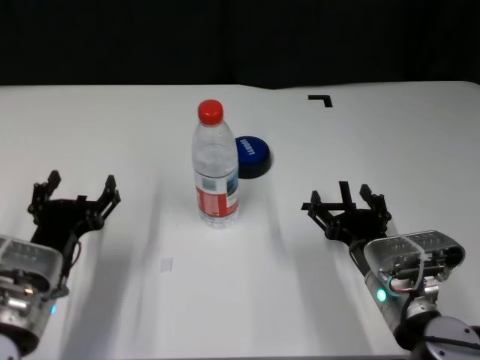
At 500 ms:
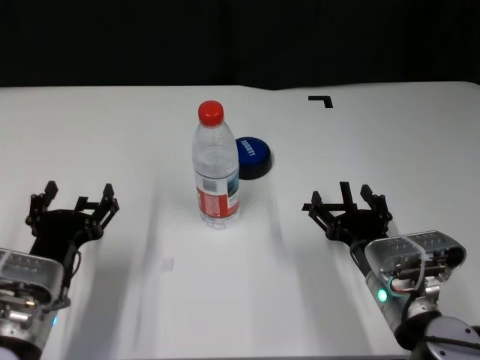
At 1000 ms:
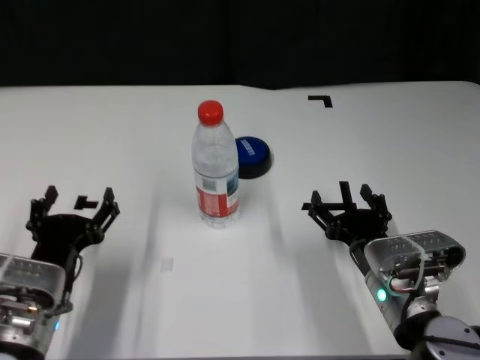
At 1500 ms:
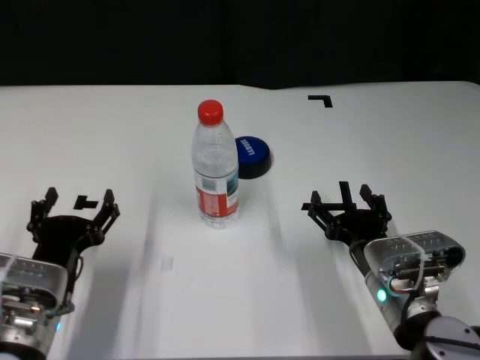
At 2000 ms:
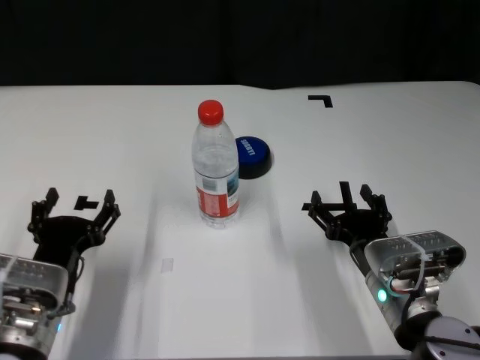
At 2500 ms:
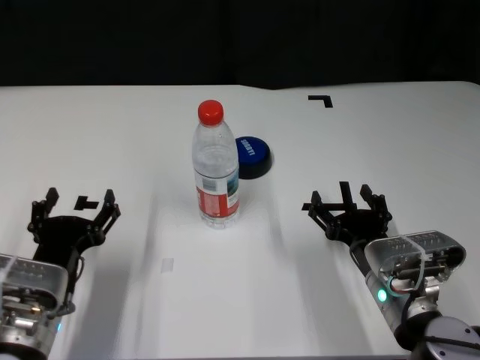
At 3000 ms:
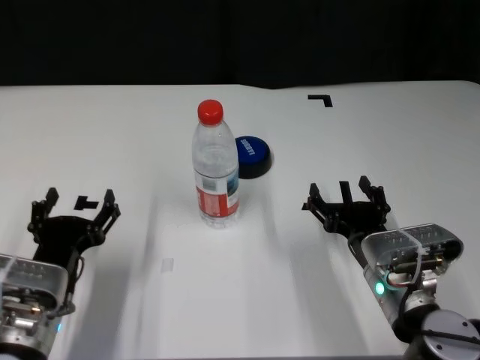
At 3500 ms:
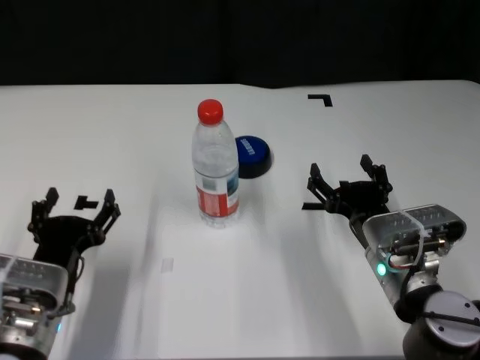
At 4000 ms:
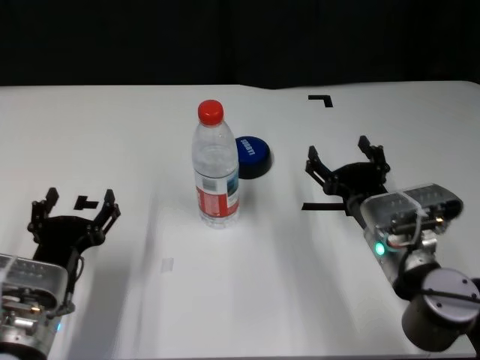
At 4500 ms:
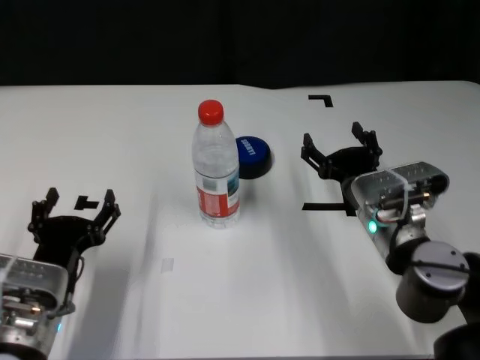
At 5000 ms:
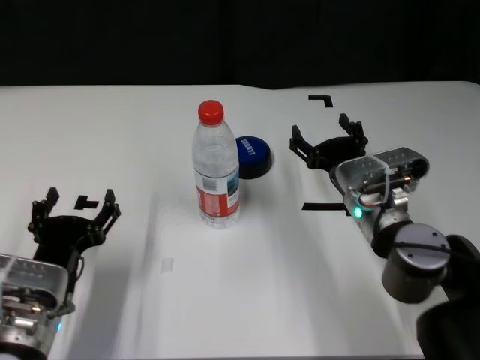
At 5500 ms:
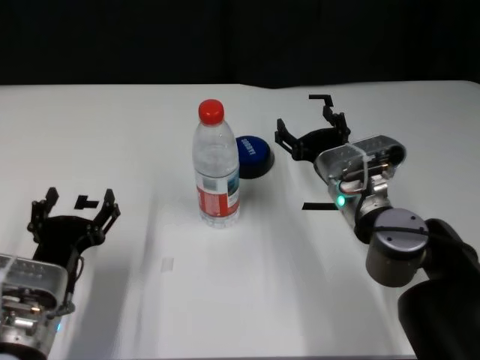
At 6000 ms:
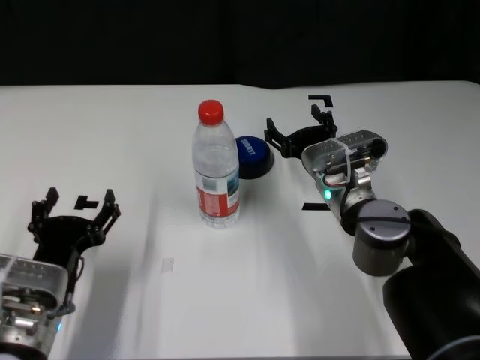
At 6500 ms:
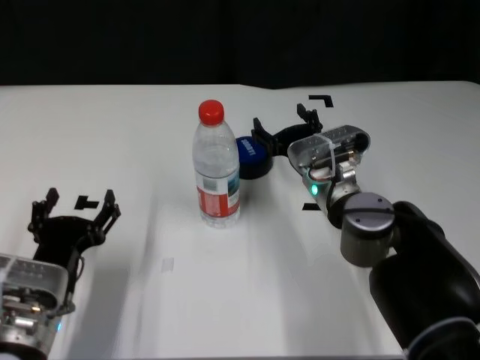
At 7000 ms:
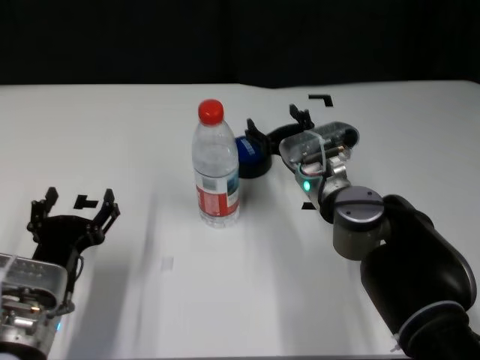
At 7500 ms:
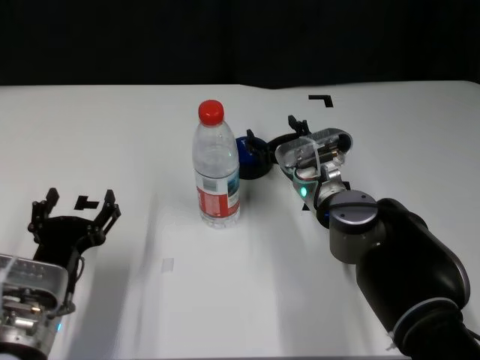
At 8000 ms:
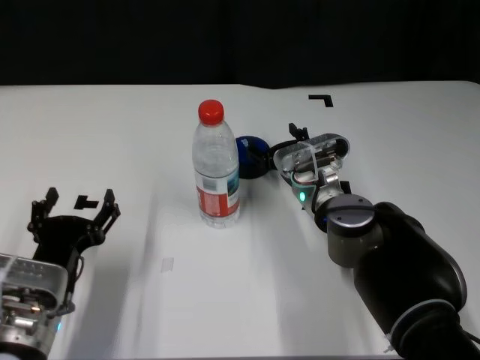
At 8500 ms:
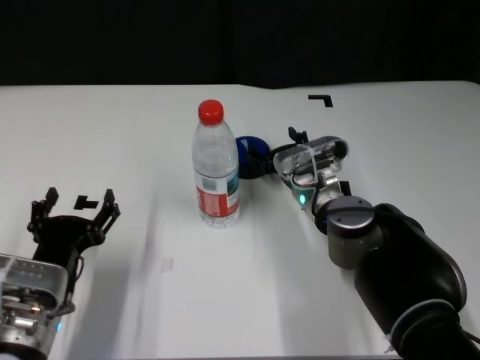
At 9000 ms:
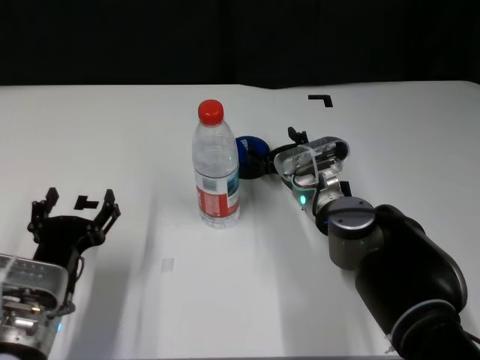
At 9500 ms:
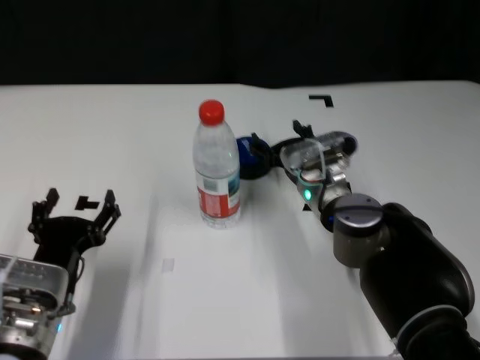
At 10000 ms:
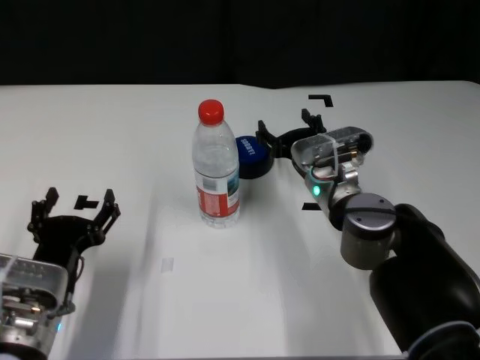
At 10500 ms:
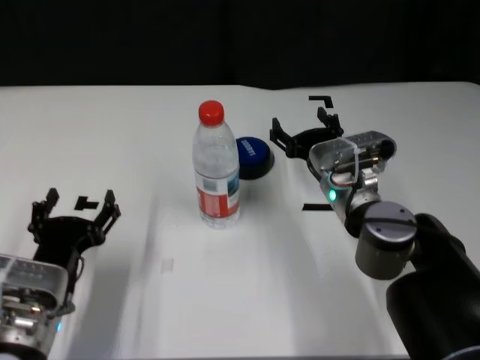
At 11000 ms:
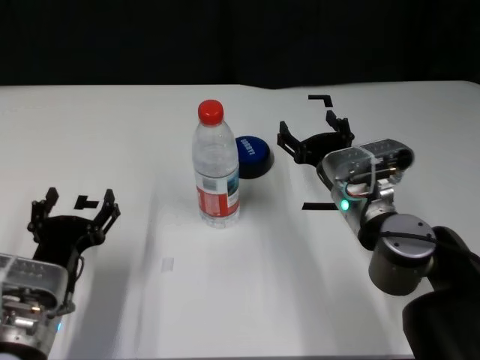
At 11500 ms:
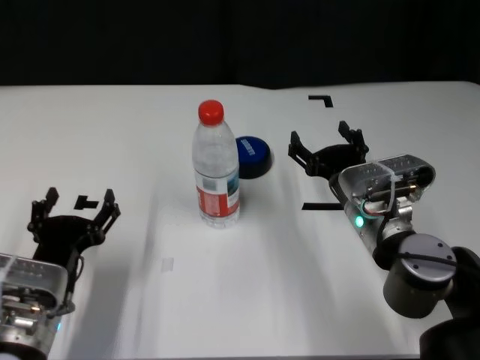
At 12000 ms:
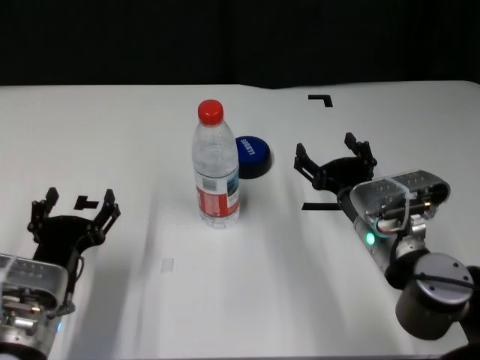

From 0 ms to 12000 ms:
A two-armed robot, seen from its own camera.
Task of the whole recording: after avoiding the water bottle on the table, press the button.
Step, from 0 ms to 9000 ms: Press the button blocked by the bottle with right gripper.

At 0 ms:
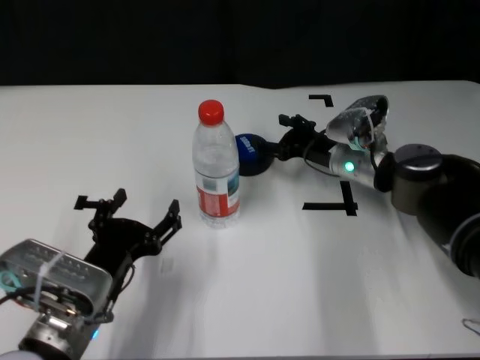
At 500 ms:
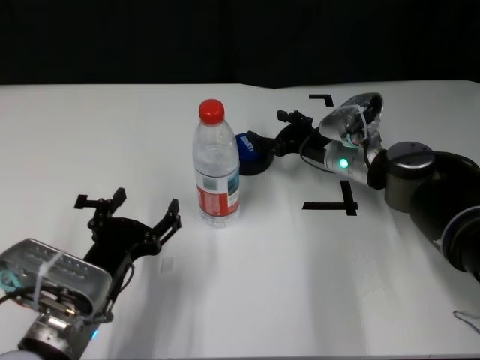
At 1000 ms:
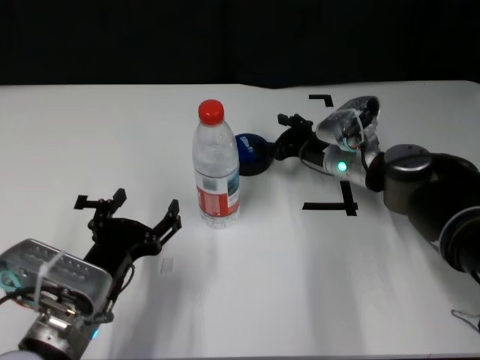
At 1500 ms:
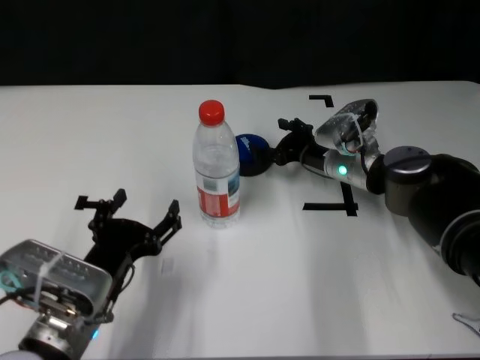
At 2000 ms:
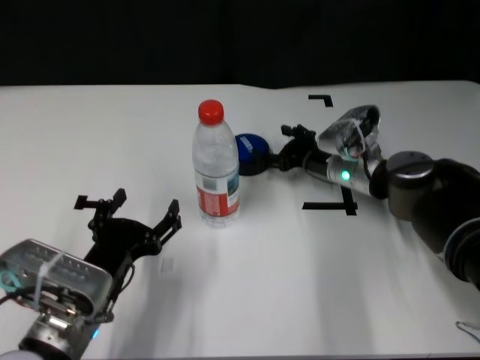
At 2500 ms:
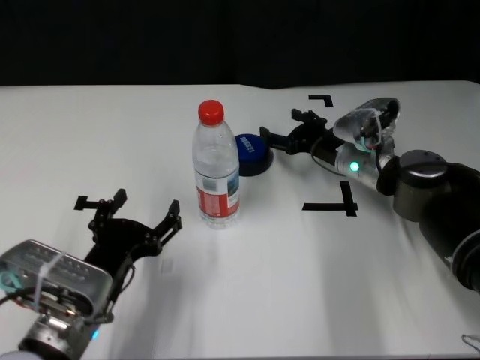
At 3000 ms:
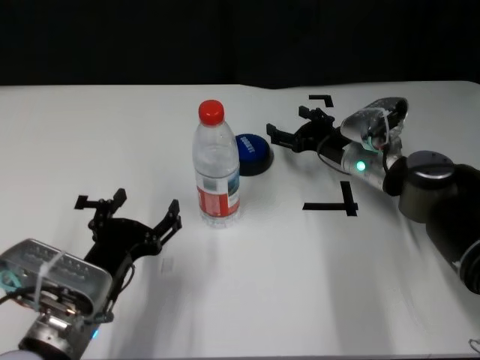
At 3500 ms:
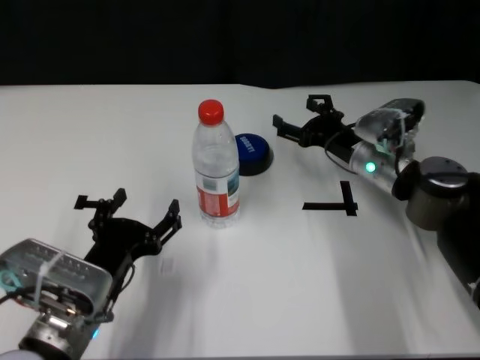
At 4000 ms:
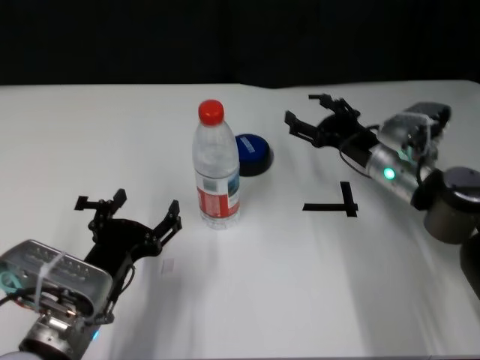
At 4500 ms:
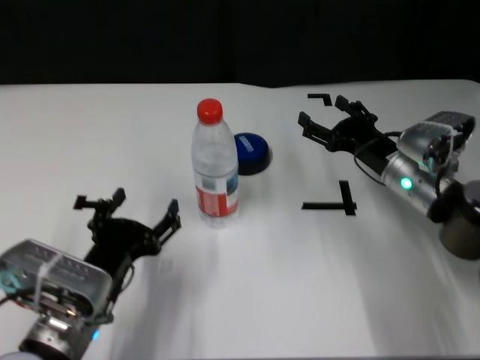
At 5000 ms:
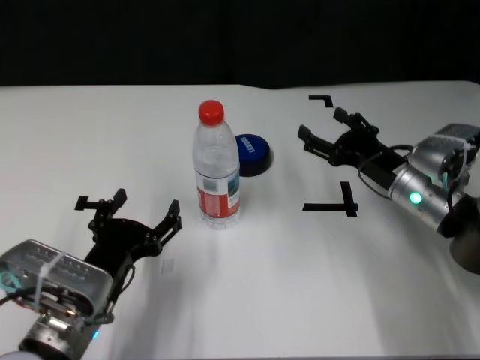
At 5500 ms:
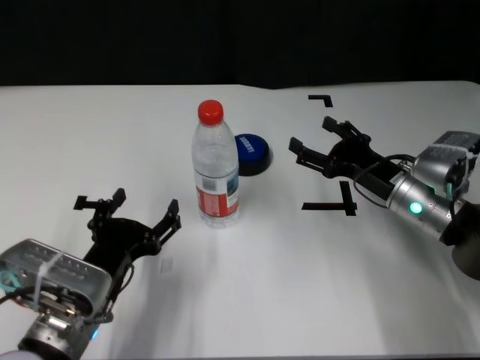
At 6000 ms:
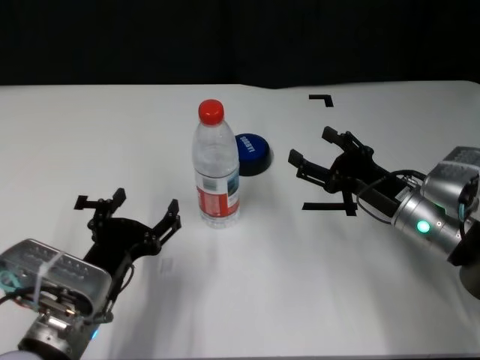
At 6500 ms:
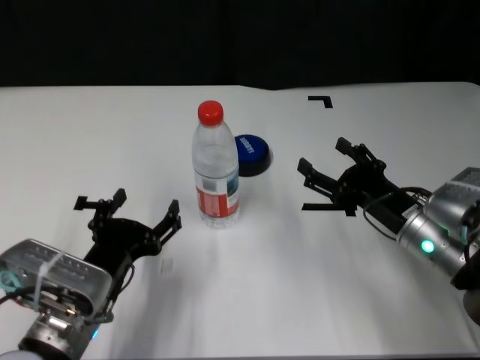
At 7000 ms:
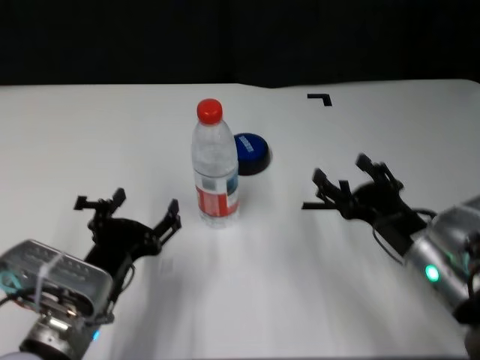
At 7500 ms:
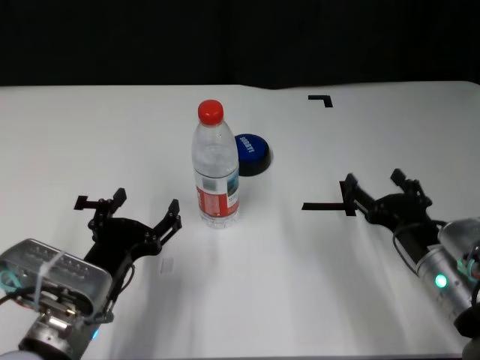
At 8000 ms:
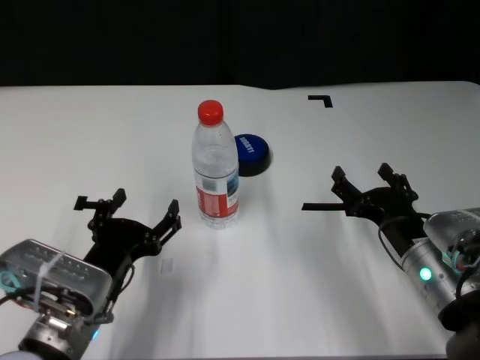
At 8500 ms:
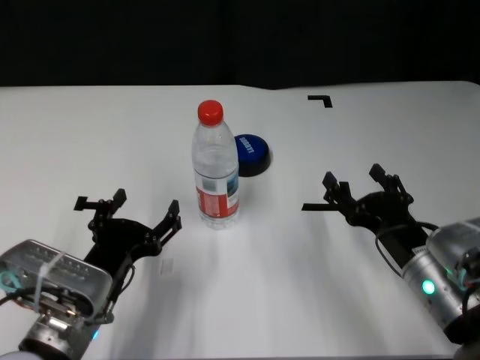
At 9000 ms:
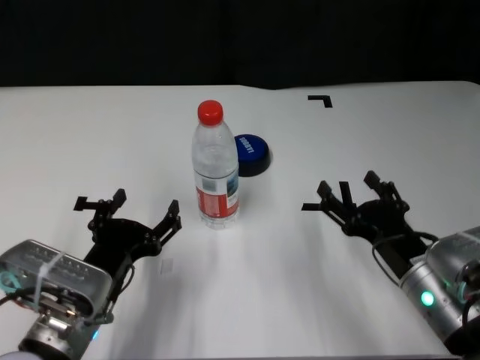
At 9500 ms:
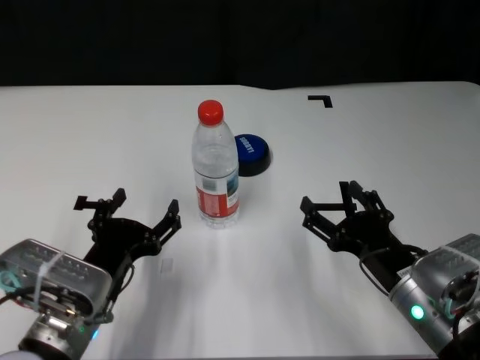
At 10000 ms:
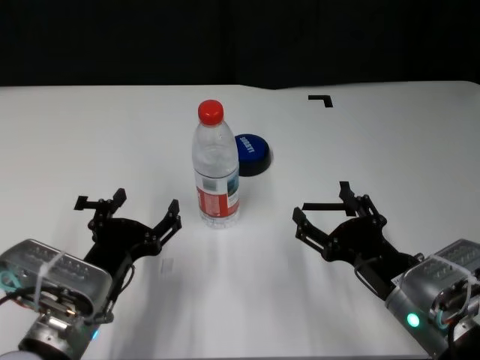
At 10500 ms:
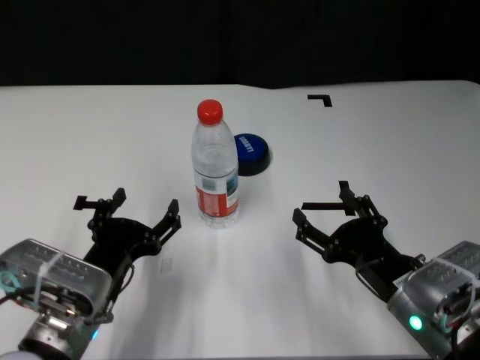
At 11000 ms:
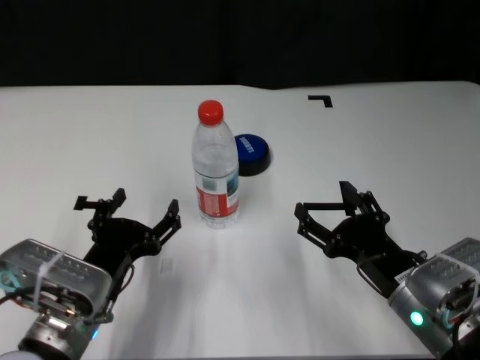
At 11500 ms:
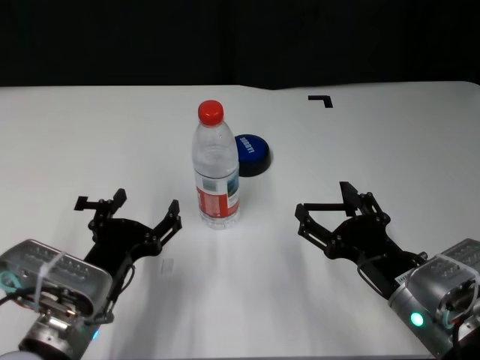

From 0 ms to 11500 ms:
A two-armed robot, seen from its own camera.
Task of the whole recording: after avoiding the water bottle on the table, press the button.
Step, from 0 ms to 2000 ms: Press the button blocked by the bottle with right gripper.
